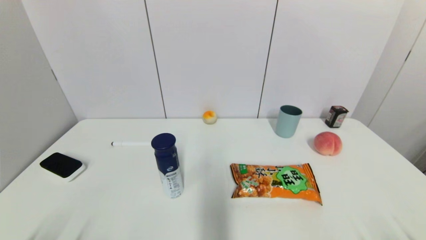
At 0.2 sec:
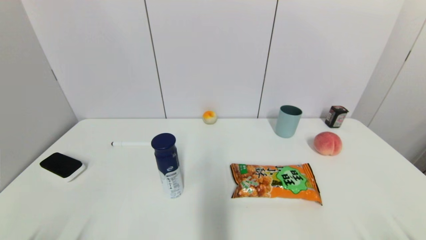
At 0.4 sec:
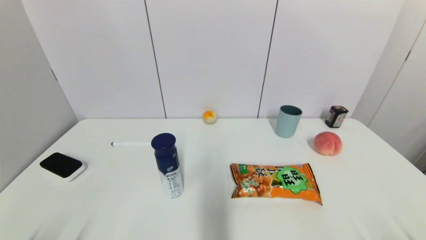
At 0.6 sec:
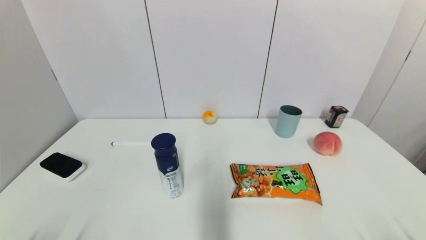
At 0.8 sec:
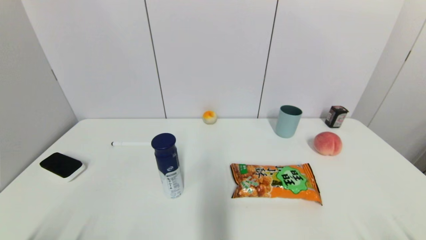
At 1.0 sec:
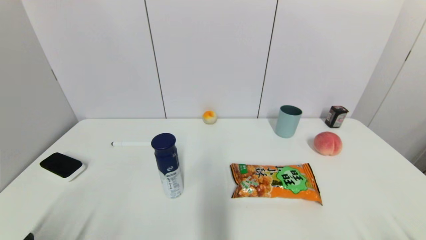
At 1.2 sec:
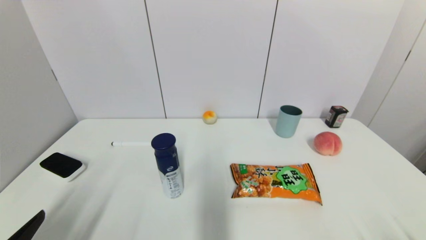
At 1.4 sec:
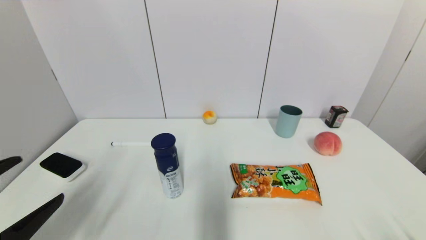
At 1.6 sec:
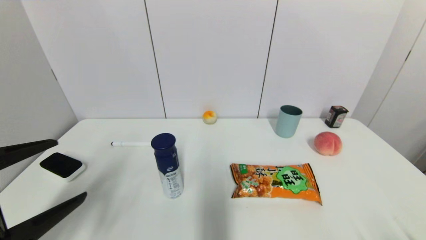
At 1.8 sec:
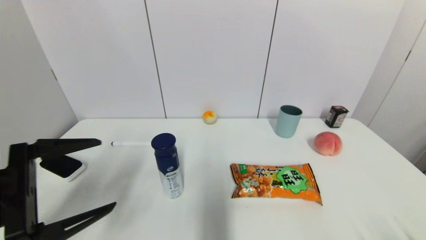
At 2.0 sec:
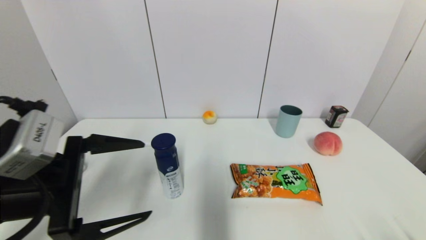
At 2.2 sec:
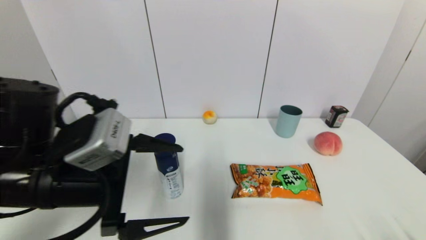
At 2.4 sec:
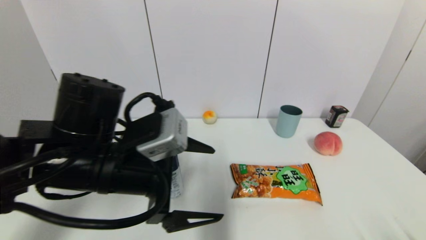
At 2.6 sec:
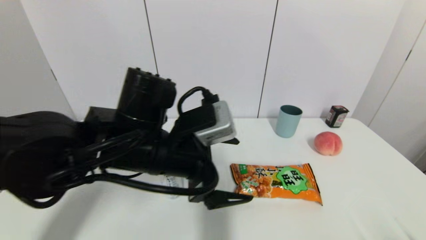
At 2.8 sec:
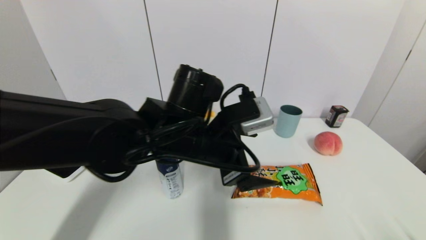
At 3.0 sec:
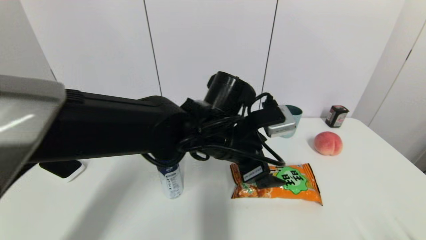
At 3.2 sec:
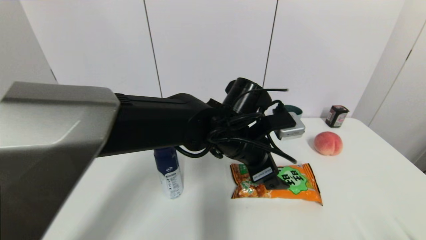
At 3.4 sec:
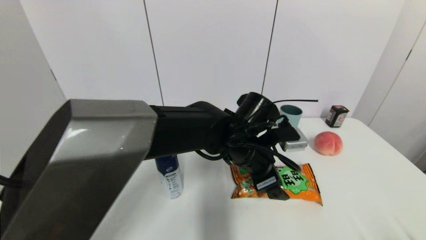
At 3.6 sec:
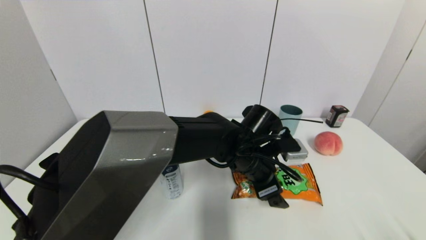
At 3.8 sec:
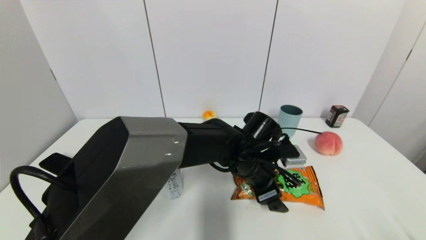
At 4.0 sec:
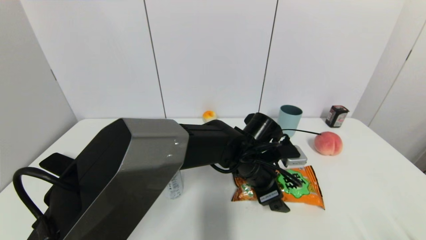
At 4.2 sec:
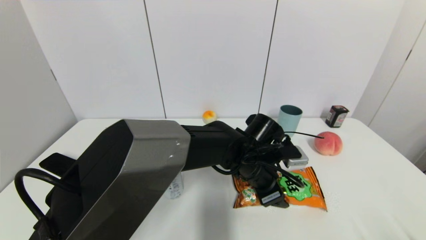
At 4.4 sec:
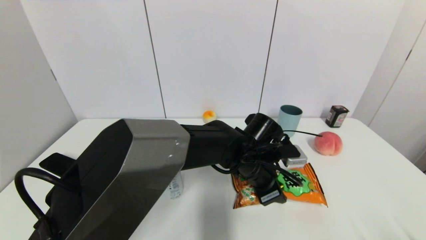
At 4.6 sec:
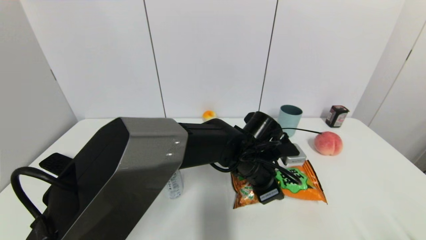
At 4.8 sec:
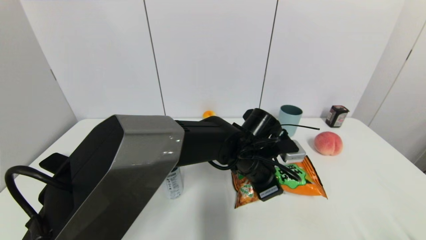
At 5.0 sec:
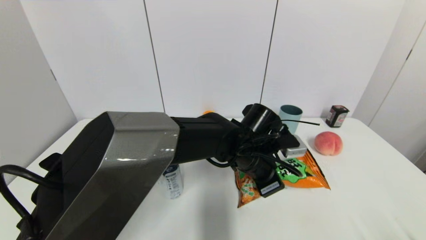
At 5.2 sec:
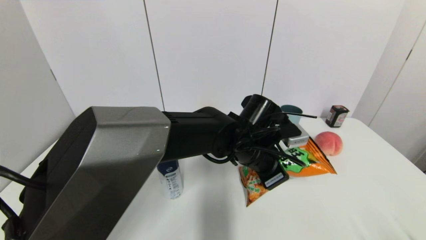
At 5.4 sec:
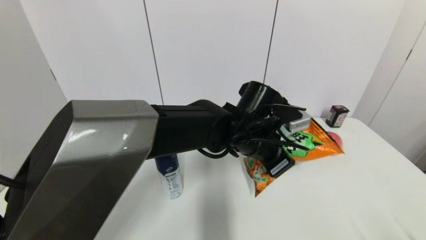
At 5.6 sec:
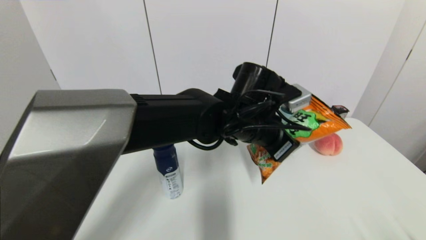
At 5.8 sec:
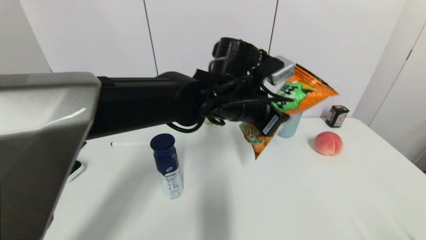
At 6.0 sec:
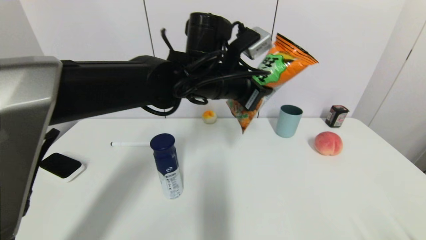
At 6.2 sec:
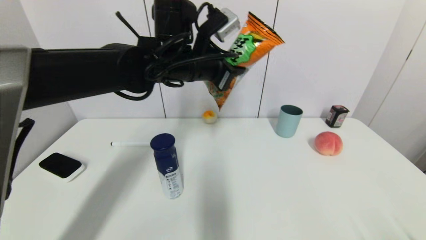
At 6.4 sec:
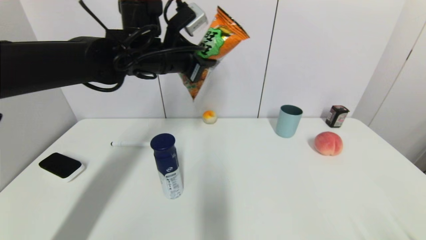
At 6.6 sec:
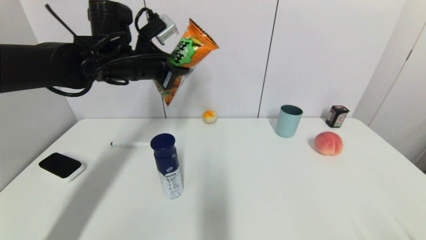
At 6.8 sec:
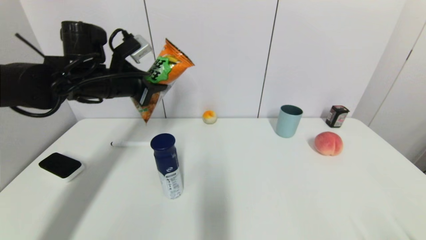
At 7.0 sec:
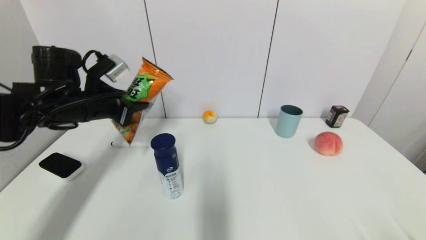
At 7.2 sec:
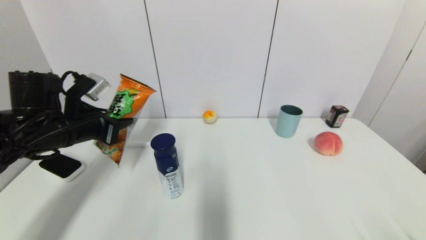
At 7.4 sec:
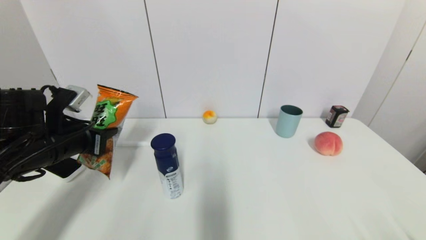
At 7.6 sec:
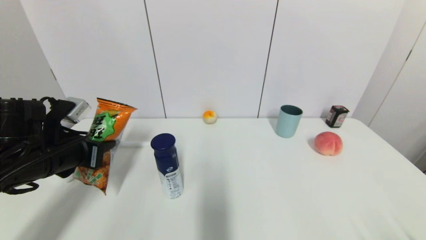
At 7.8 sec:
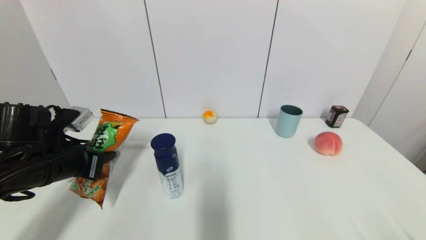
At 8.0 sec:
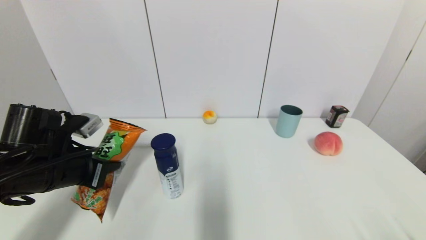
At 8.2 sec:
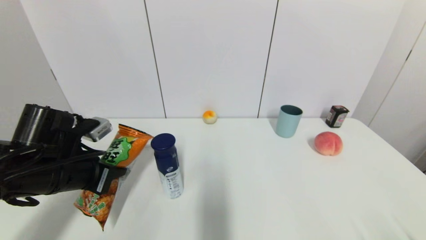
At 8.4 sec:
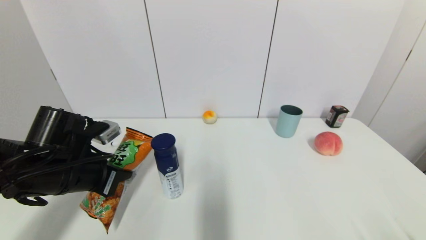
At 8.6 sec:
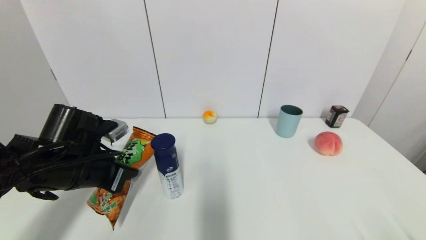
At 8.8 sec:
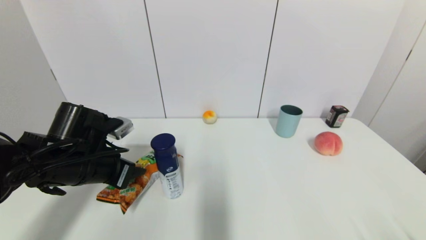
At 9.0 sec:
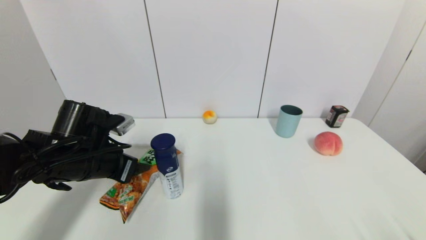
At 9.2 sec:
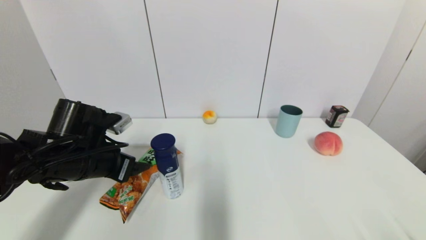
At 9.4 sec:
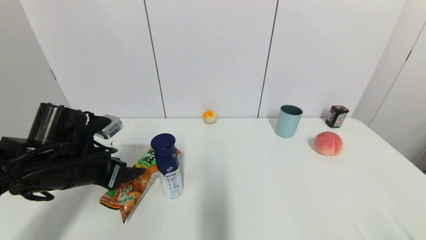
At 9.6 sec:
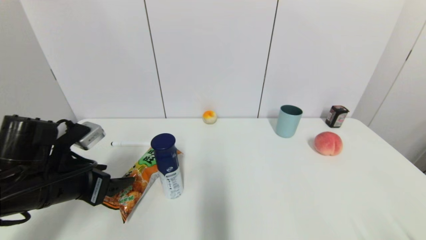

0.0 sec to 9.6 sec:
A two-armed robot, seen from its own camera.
Step, 1.0 sec to 4.8 sec: Grasp the cookie with left gripper.
0.0 sec to 1.6 sec: The left gripper travels upward and forward by about 15 cm.
1.6 sec to 3.2 sec: The left gripper is displaced to the right and forward by approximately 35 cm.
3.2 sec to 4.8 sec: The left gripper heads downward, covering approximately 5 cm, and closes.
4.8 sec to 6.4 sec: The left gripper travels upward and to the left by roughly 25 cm.
6.4 sec to 8.0 sec: The left gripper shifts roughly 25 cm to the left, backward and downward.
8.0 sec to 9.6 sec: The left gripper opens its fingers.

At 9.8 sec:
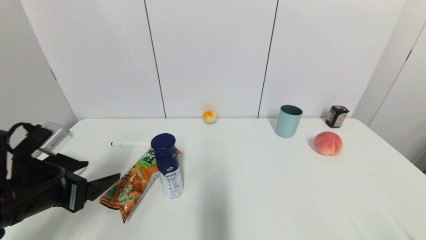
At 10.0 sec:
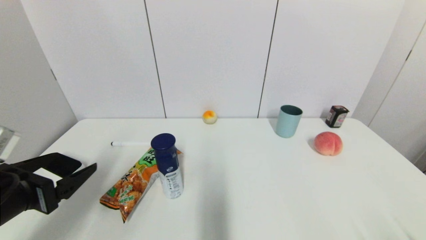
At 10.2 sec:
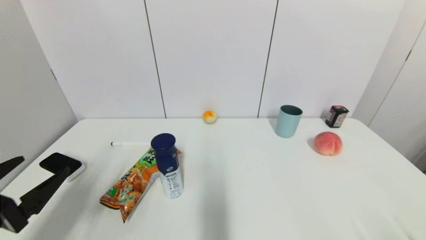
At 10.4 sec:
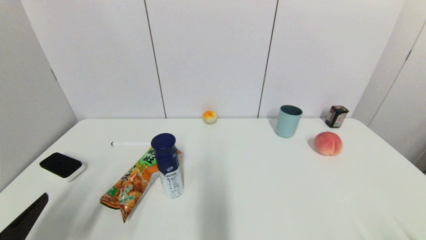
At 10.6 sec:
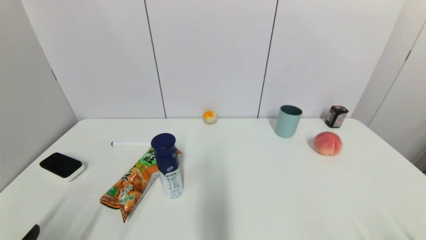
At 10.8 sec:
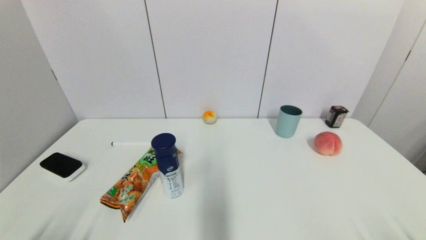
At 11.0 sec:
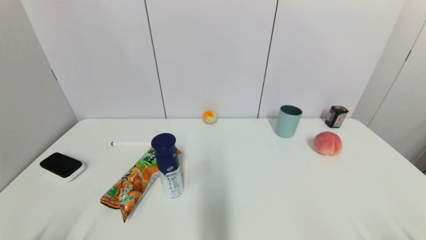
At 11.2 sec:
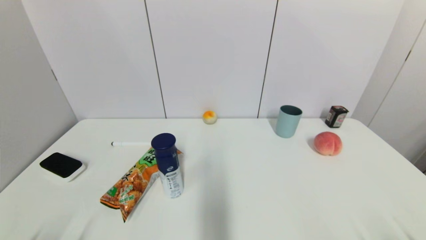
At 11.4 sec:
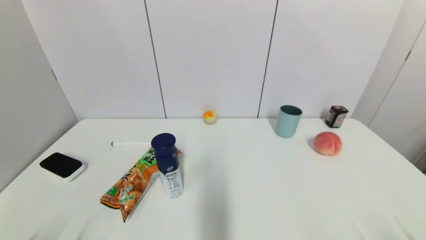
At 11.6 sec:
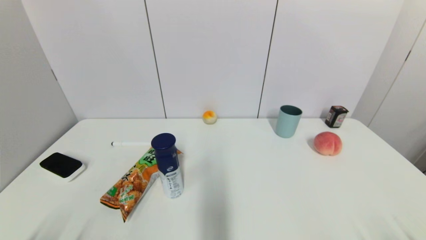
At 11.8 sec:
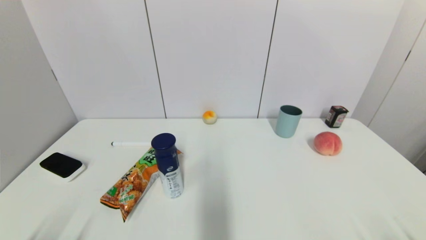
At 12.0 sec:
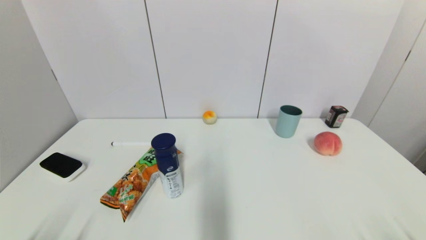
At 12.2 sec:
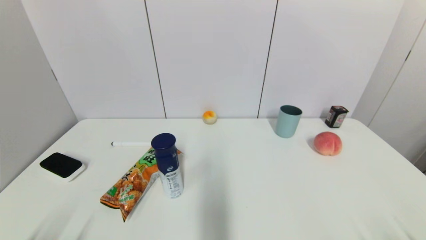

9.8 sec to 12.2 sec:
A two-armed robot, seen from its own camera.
9.8 sec to 11.0 sec: The left gripper moves backward and downward, roughly 20 cm.
